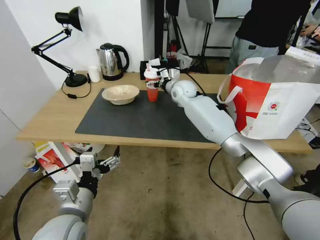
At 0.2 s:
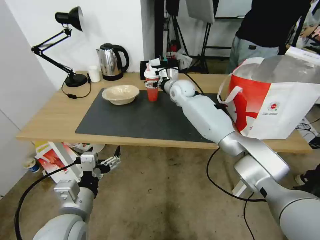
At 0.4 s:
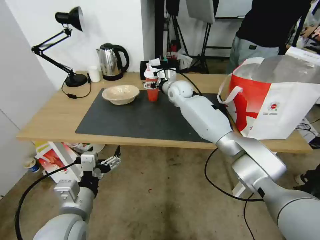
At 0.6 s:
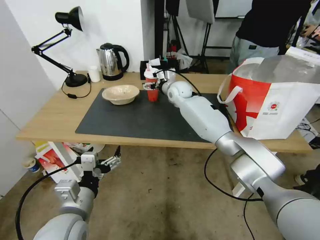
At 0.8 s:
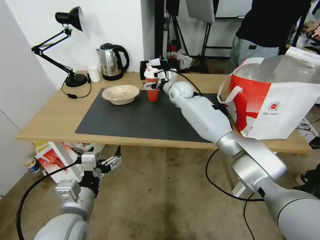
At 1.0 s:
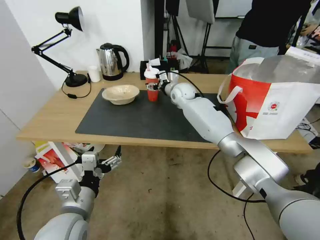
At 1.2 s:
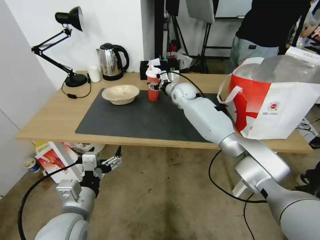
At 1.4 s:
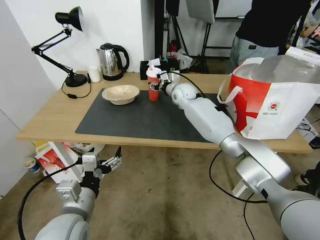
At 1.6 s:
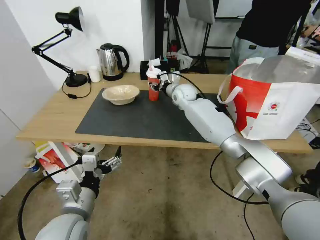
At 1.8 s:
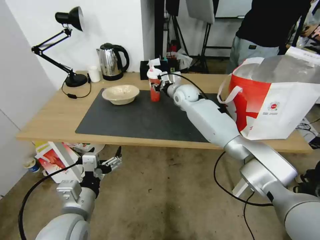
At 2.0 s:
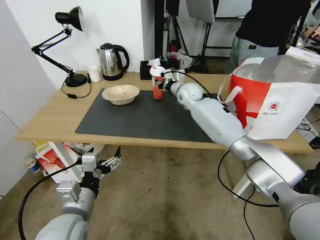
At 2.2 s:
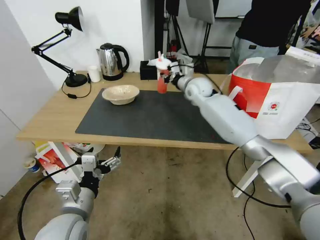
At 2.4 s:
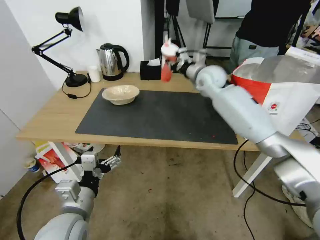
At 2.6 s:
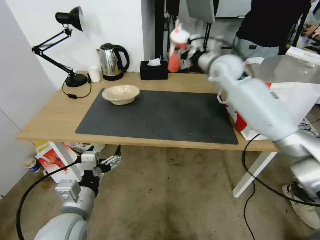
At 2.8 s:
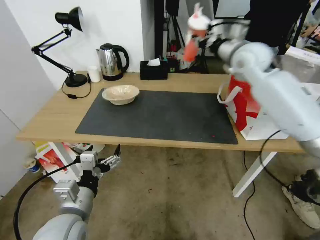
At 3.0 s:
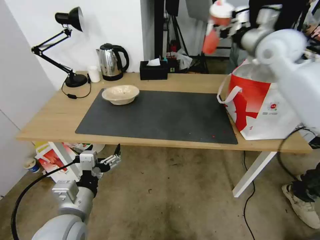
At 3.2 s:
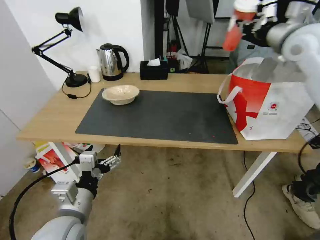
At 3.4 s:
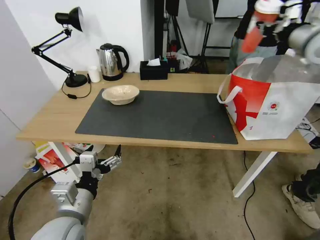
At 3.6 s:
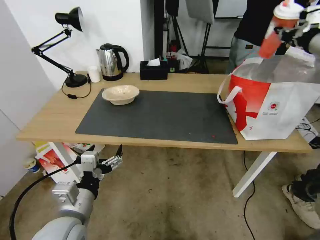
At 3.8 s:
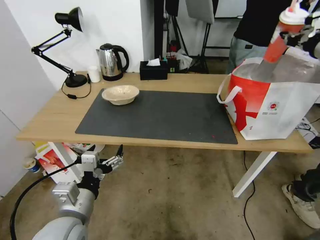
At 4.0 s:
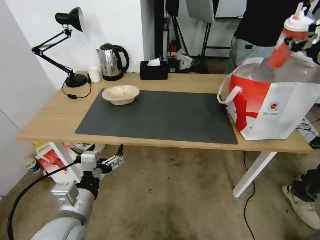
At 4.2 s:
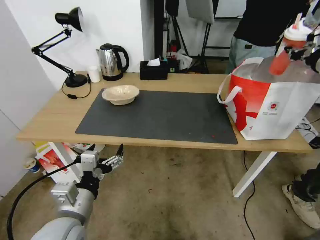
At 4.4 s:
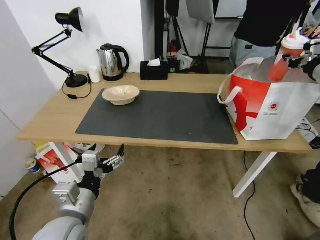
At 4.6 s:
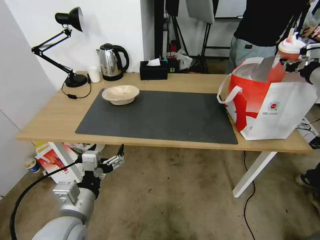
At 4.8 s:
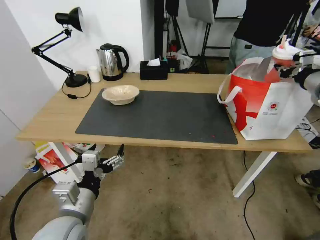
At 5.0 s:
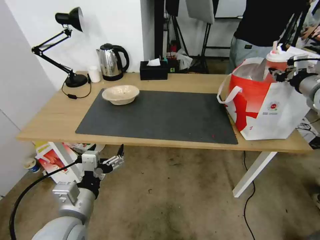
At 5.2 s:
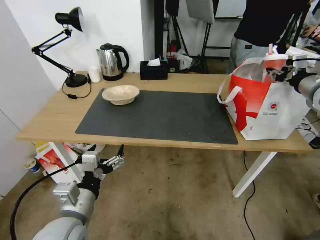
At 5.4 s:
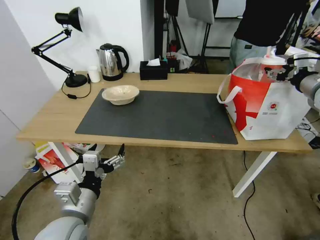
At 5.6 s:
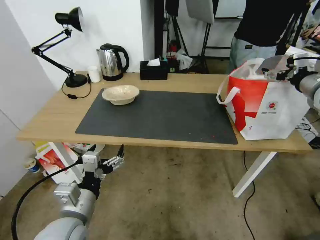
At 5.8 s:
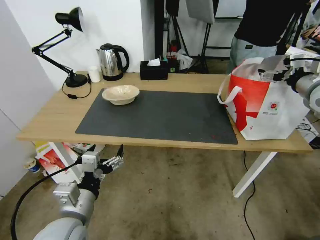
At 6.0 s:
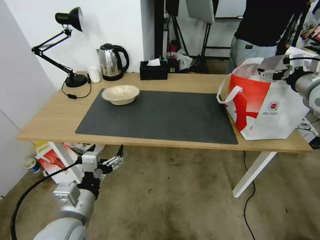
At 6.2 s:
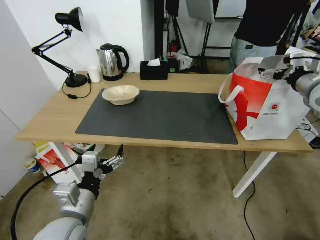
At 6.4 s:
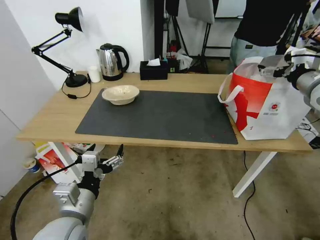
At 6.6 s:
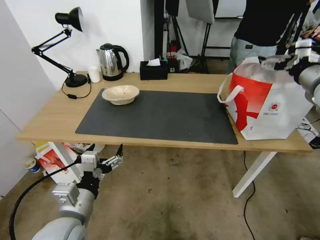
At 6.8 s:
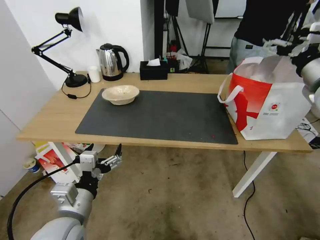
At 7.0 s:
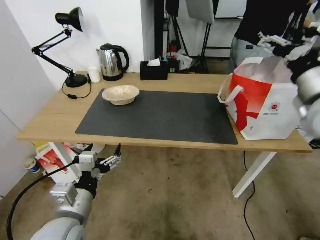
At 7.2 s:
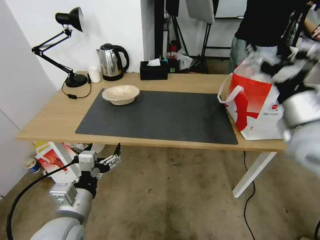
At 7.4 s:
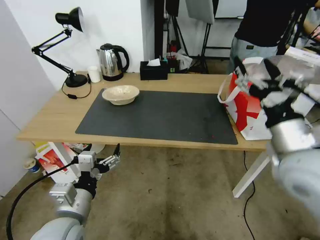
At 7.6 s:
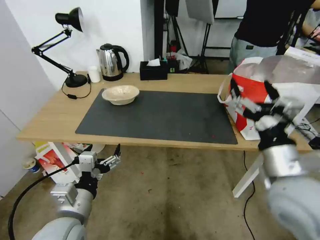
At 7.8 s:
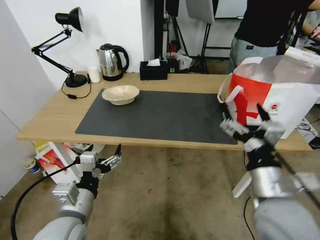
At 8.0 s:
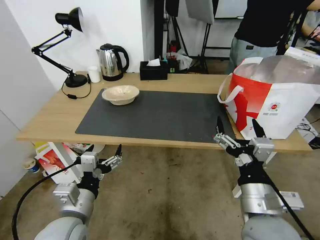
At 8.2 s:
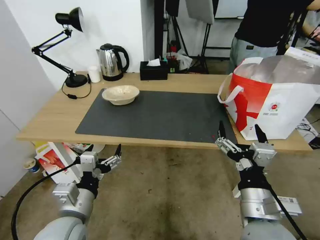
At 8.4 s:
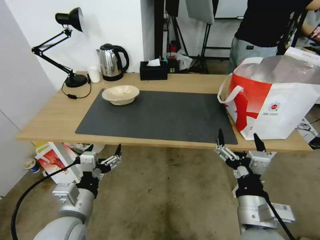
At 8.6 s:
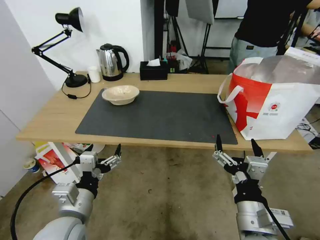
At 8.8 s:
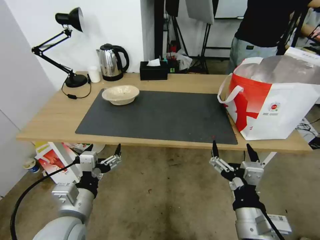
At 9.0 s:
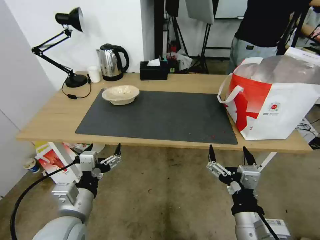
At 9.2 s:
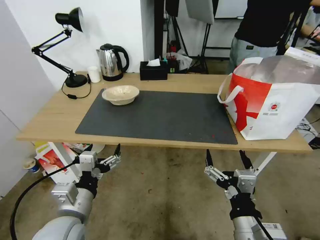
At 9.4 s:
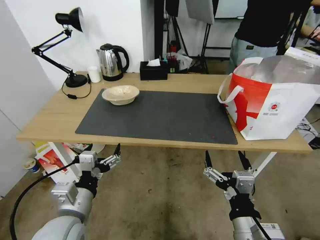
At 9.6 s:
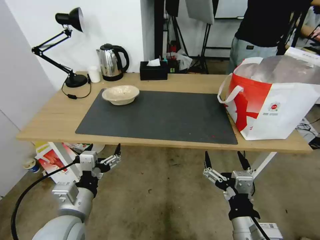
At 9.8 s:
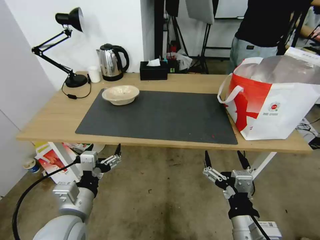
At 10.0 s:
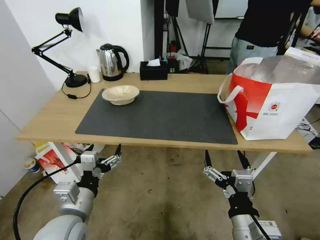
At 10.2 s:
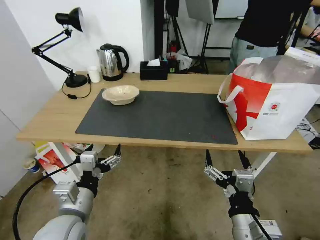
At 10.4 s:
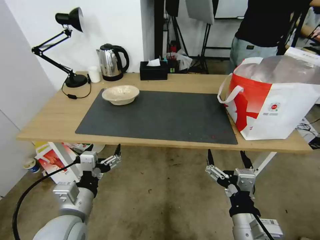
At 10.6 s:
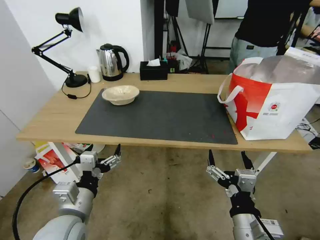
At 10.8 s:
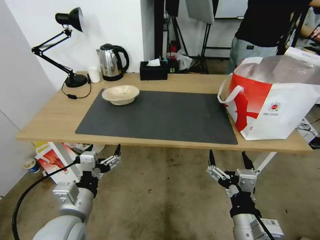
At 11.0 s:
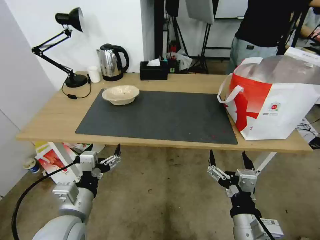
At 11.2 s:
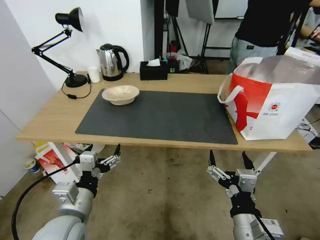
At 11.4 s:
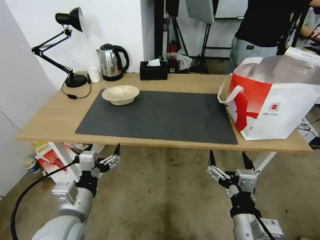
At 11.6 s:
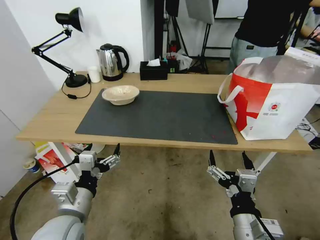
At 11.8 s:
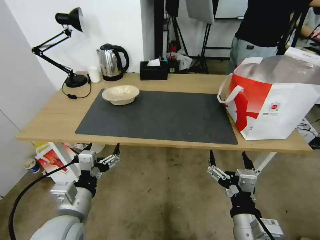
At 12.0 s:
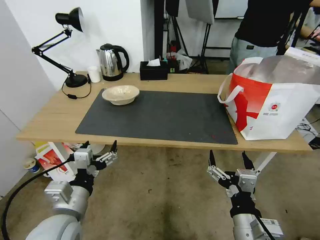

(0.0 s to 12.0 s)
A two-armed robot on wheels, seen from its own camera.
Task of the whole recording: Pick up the trash from the table and place it into the takeout bag.
0.0 s - 1.6 s: The right gripper closes its fingers.
1.6 s - 3.0 s: The right gripper is displaced upward, to the right and backward by some 35 cm.
3.0 s - 4.4 s: The right gripper shifts some 20 cm to the right.
4.4 s - 6.0 s: The right gripper moves about 5 cm, and opens.
6.0 s - 7.6 s: The right gripper travels backward, to the left and downward by about 30 cm.
7.6 s - 9.0 s: The right gripper goes about 15 cm backward, downward and to the left.
9.0 s - 10.4 s: The grippers move only a little.
10.4 s - 12.0 s: The two grippers keep their place.

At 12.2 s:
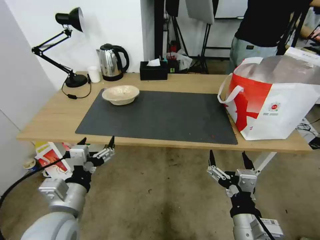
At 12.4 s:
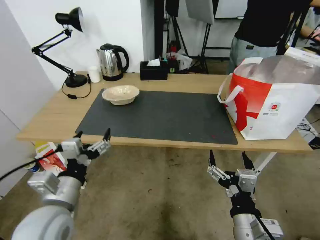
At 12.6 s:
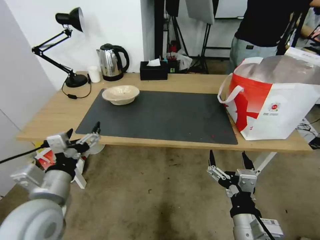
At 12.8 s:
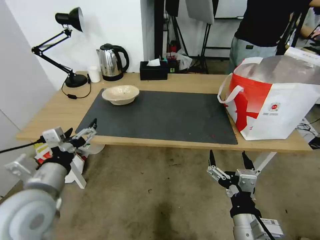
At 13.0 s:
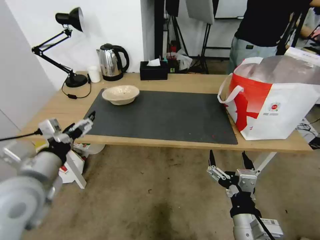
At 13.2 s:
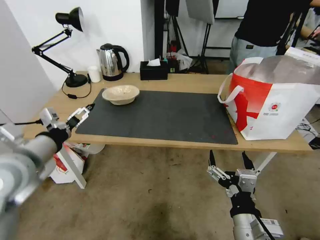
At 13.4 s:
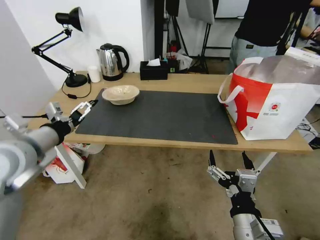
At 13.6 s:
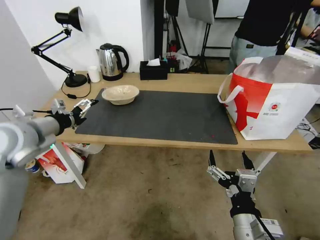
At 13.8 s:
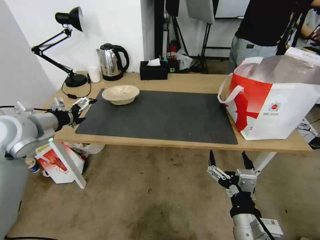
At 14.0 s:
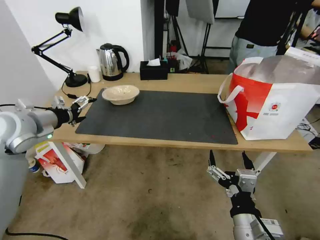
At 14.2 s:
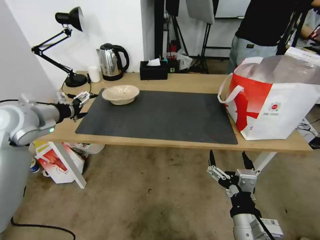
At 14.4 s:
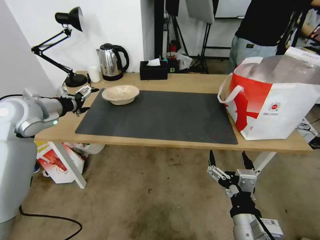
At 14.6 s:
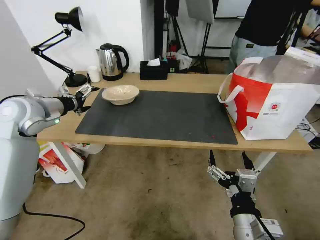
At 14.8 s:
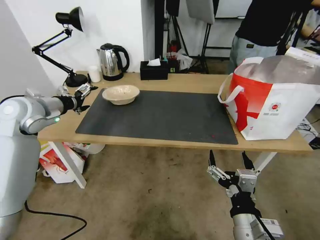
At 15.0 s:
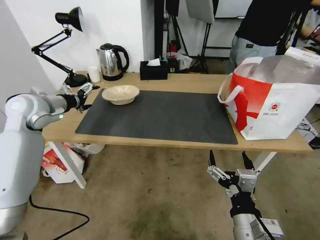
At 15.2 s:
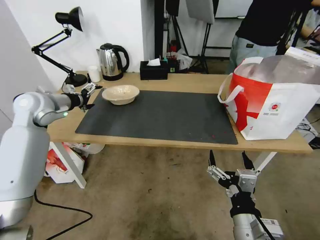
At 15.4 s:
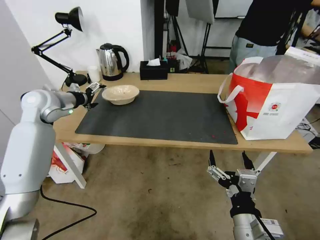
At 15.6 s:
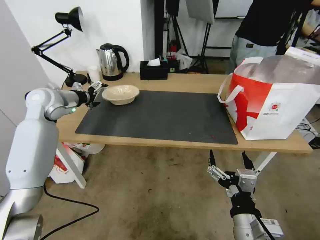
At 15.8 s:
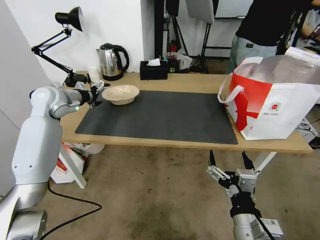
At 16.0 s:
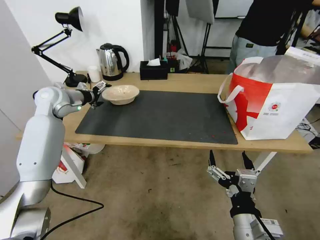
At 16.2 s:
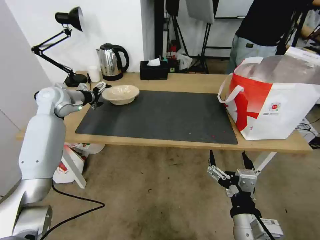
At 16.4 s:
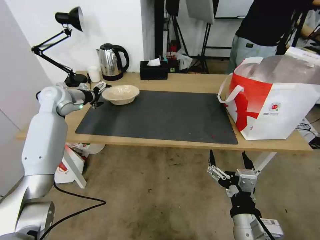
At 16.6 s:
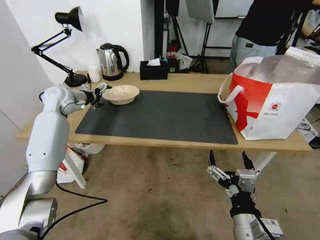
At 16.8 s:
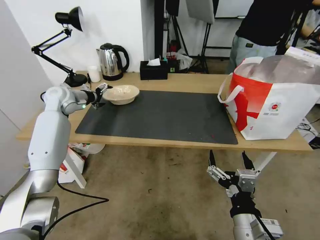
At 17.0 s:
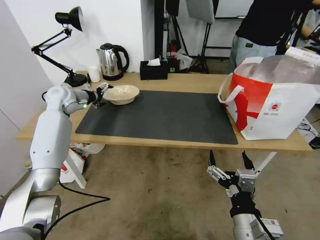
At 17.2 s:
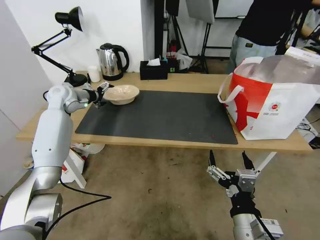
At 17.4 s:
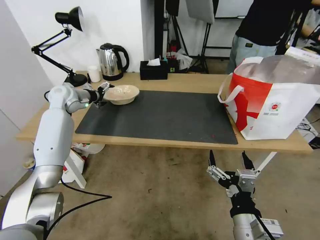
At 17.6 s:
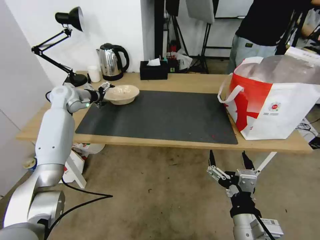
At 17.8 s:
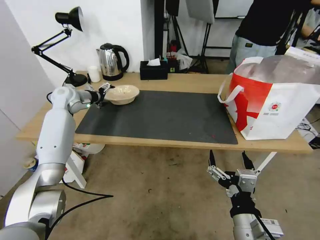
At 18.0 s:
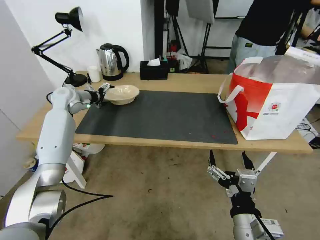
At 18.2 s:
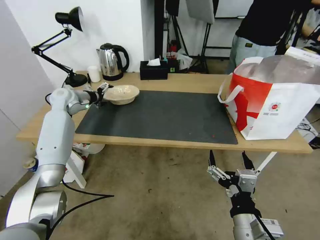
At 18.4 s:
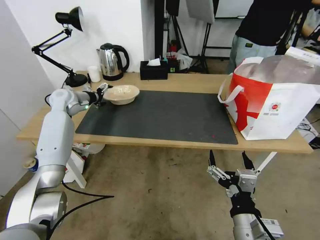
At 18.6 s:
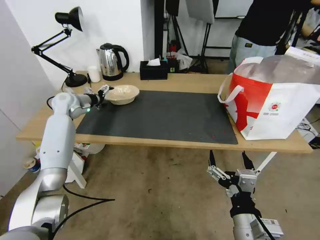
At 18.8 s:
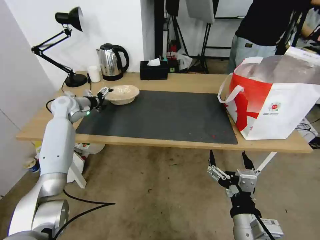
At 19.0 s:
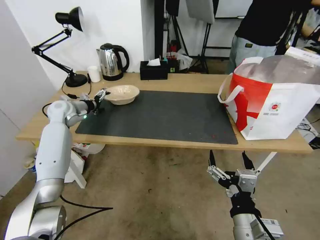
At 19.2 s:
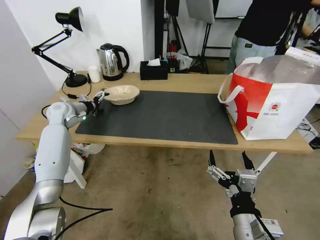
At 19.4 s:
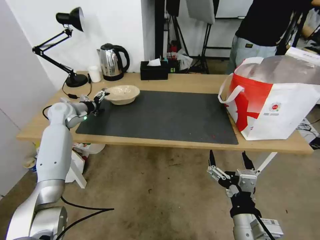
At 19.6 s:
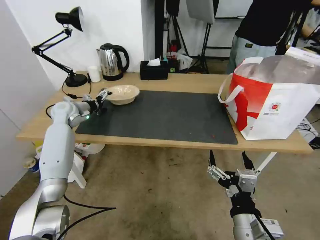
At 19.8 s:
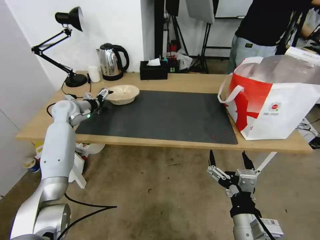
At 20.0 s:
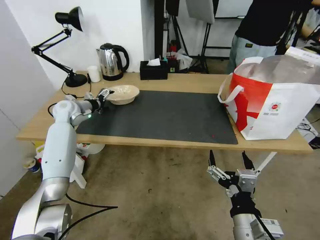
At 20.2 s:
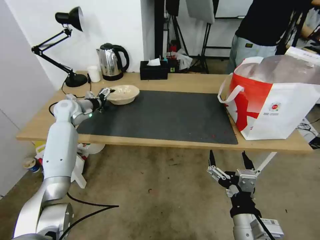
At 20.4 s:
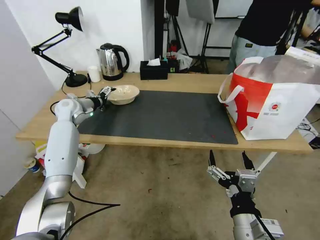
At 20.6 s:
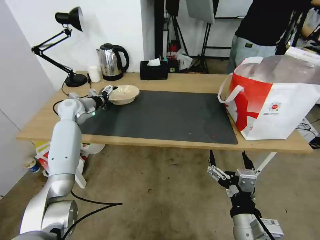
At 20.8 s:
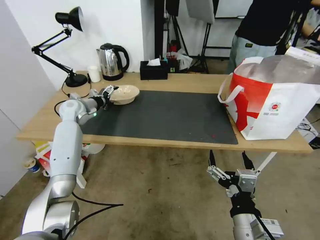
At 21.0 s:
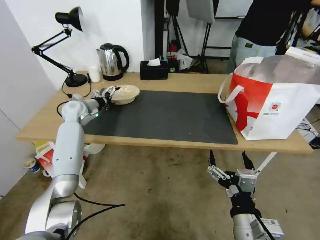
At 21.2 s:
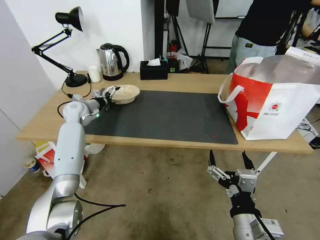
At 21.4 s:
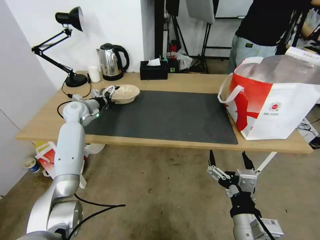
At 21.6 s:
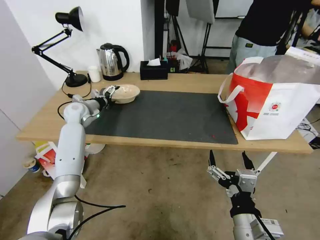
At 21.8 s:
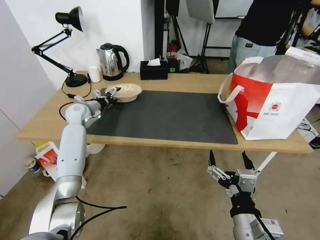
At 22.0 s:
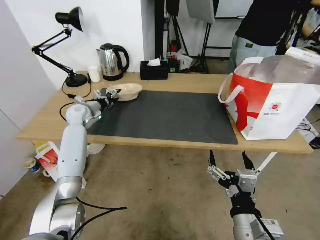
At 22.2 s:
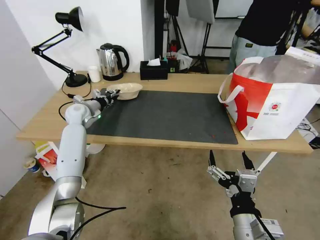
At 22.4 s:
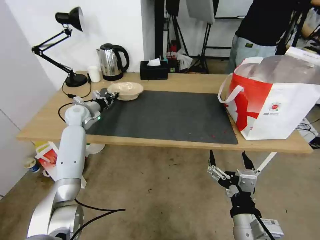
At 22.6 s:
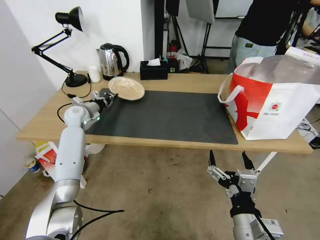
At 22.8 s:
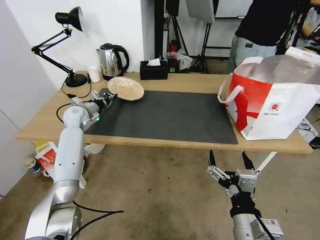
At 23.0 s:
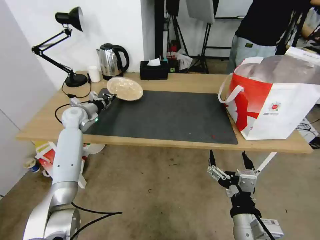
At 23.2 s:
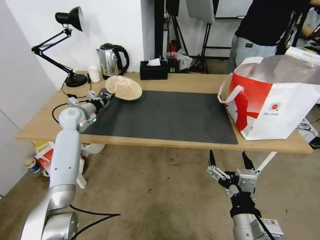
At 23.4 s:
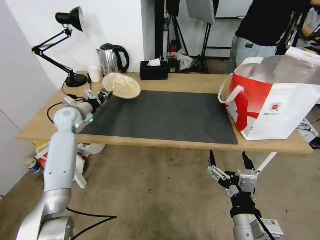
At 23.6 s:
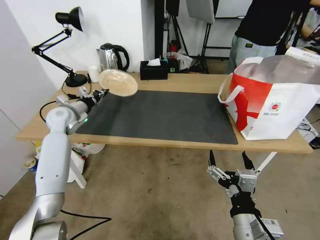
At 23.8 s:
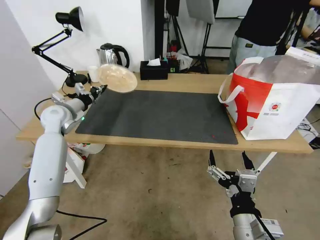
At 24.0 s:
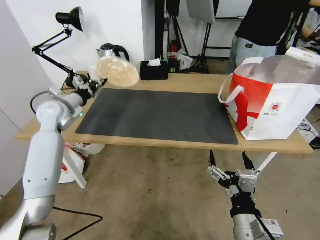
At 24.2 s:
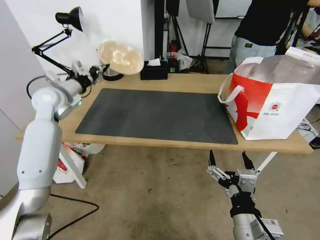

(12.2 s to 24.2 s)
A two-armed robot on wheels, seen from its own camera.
Task of the whole recording: Pick up the trash from the table and place it into the takeout bag.
12.2 s - 13.8 s: The left gripper is displaced forward, to the left and upward by approximately 25 cm.
13.8 s - 15.2 s: The left gripper travels forward by roughly 10 cm.
15.2 s - 16.6 s: The left gripper goes approximately 10 cm forward.
16.6 s - 18.2 s: The grippers make only small movements.
18.2 s - 19.8 s: There are only small adjustments of the grippers.
19.8 s - 21.2 s: There are only small adjustments of the grippers.
21.2 s - 22.6 s: The left gripper closes.
22.6 s - 24.2 s: The left gripper heads upward and backward, covering roughly 15 cm.
